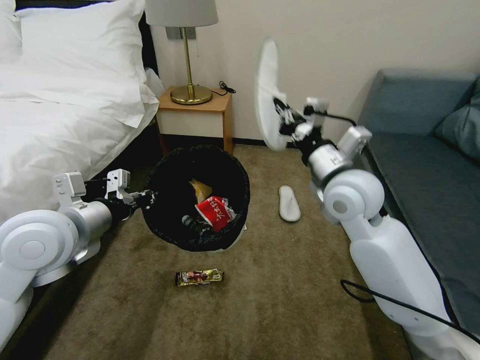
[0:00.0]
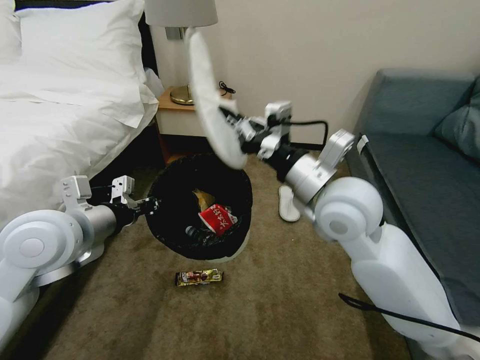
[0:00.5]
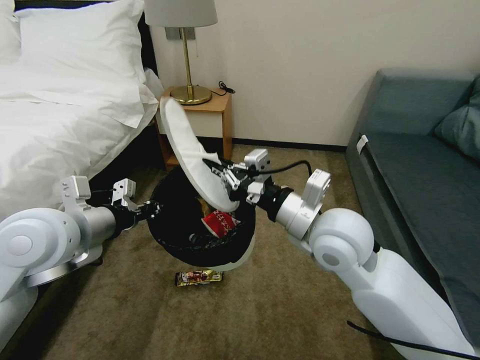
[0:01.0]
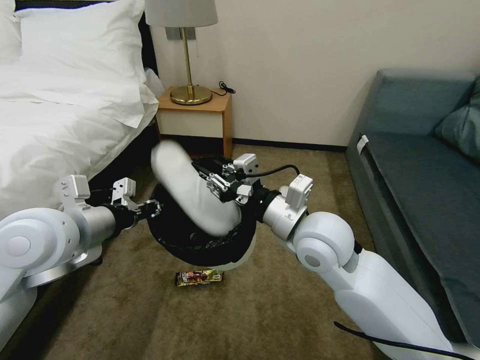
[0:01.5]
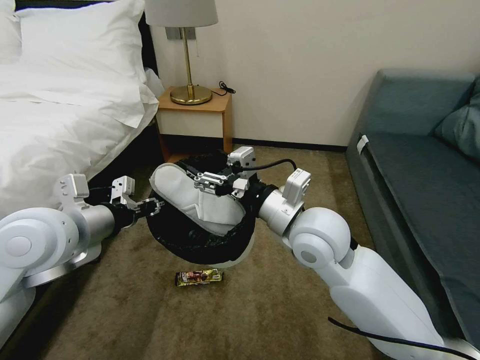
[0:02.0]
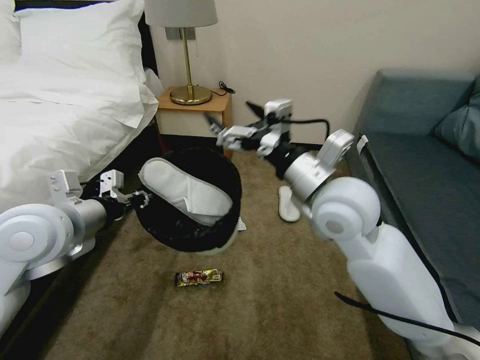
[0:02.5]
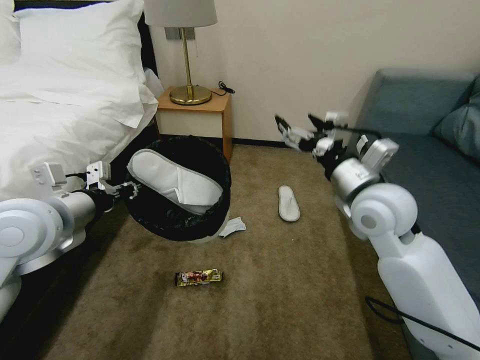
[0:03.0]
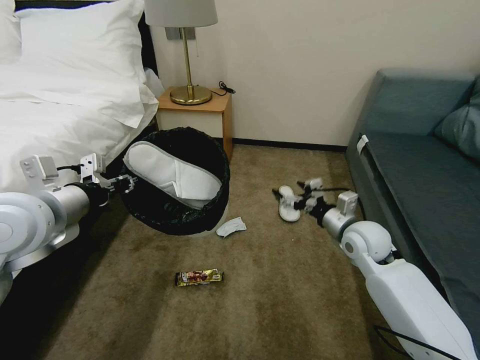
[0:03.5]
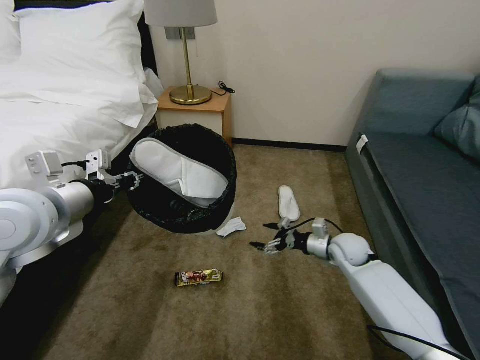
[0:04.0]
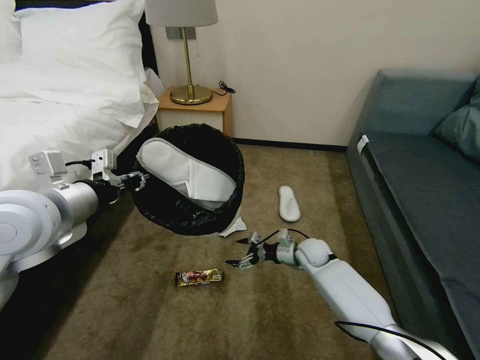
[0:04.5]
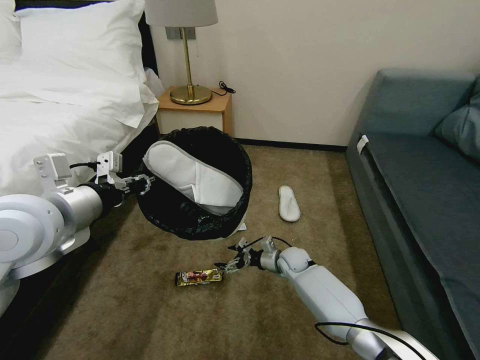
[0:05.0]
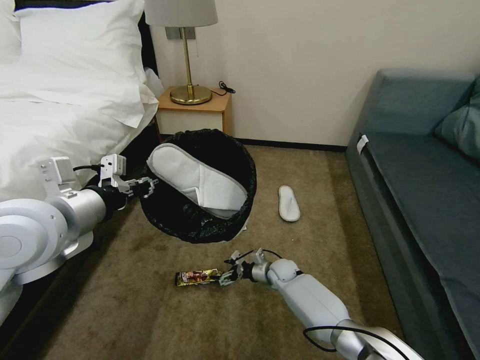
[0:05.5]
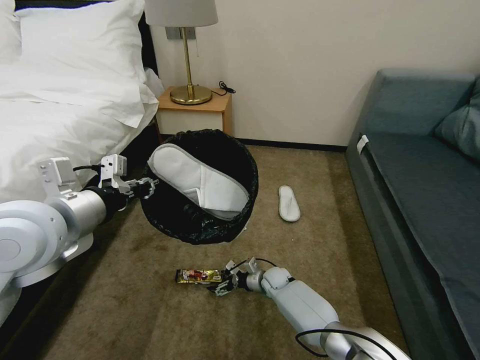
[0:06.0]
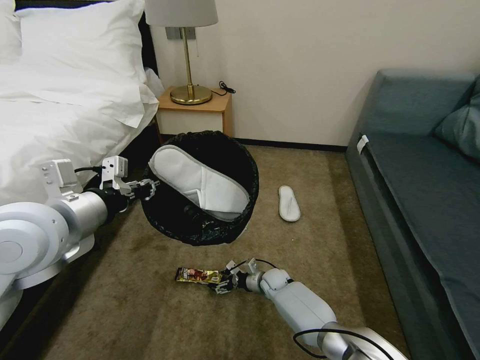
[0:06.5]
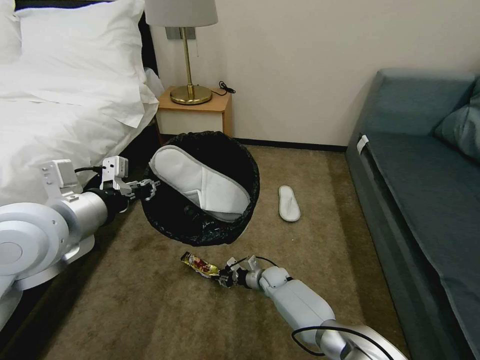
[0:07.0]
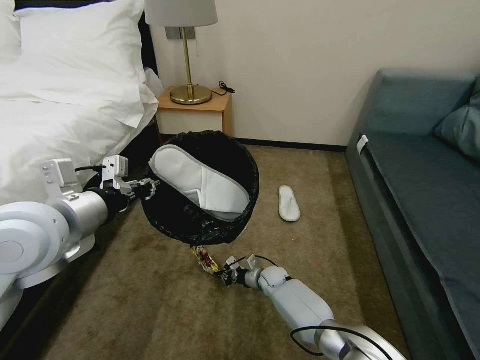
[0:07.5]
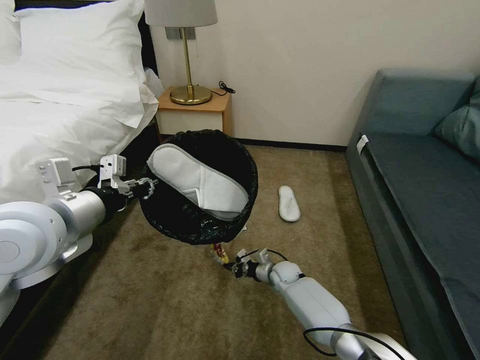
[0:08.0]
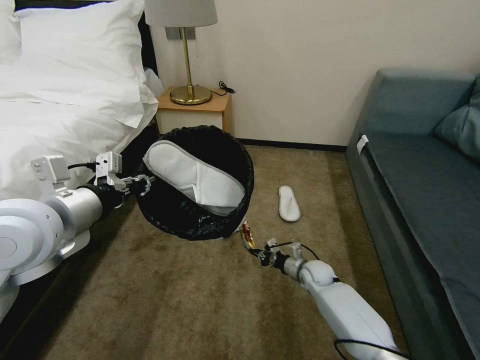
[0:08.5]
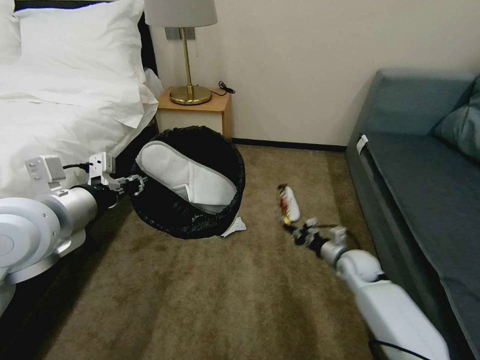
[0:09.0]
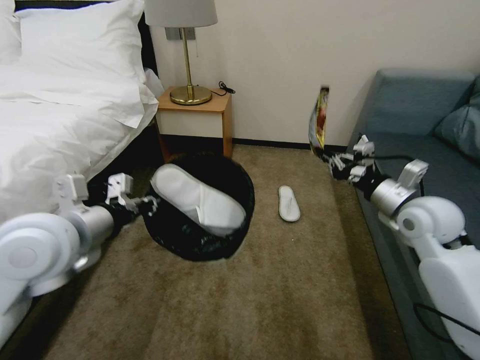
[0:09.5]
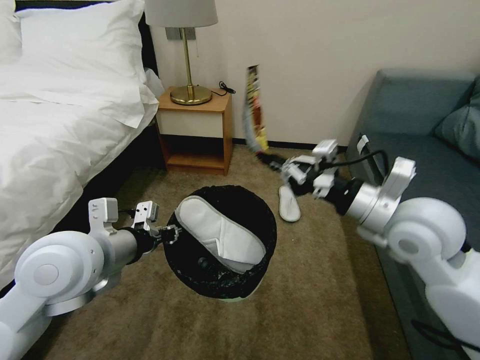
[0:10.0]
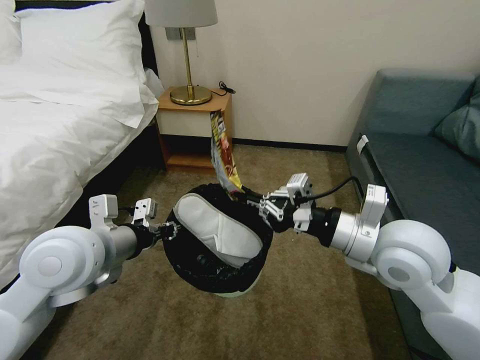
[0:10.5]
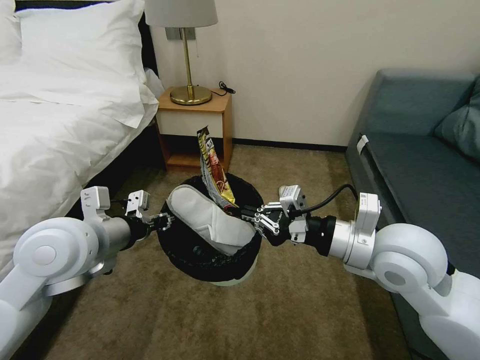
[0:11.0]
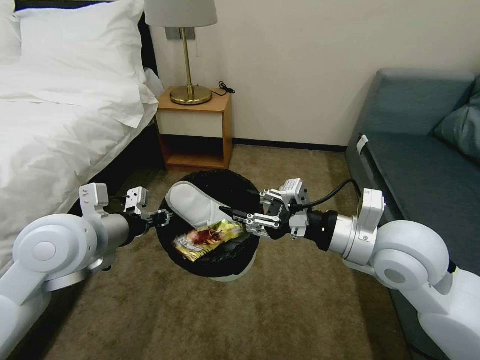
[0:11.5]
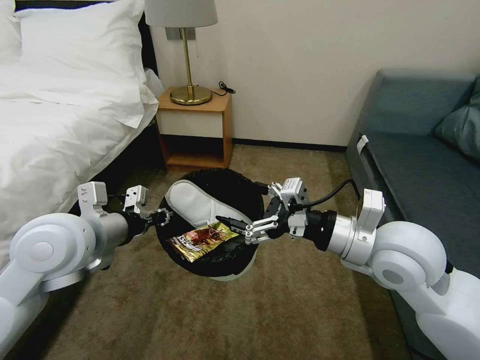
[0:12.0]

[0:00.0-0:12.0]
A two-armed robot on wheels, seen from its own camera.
Task of the whole recording: Pick up the trash bin, then pick up the garbage on the floor and place it into the trash bin.
0:00.0 to 0:02.0: The right gripper goes some 10 cm to the left and backward, and opens its fingers.
0:02.0 to 0:04.0: The right gripper goes about 30 cm downward, to the right and forward.
0:04.0 to 0:06.0: The right gripper heads downward and to the left, covering roughly 25 cm.
0:06.0 to 0:08.0: The right gripper closes.
0:08.0 to 0:10.0: The left gripper changes place by roughly 5 cm; the right gripper moves upward, about 40 cm.
0:10.0 to 0:12.0: The right gripper shifts by some 5 cm, and opens its fingers.

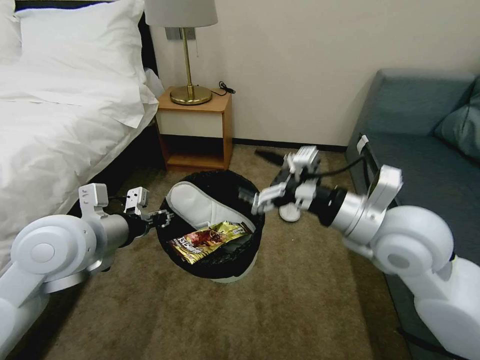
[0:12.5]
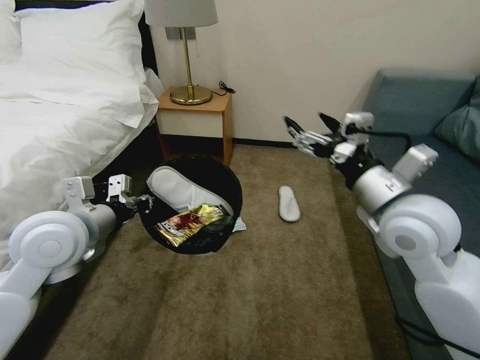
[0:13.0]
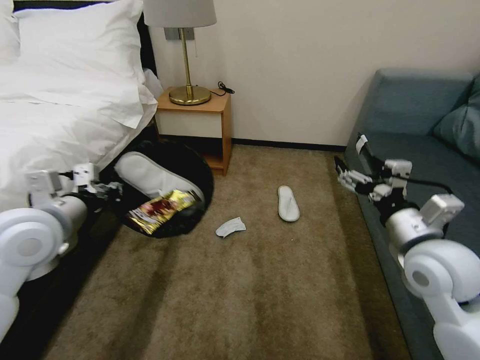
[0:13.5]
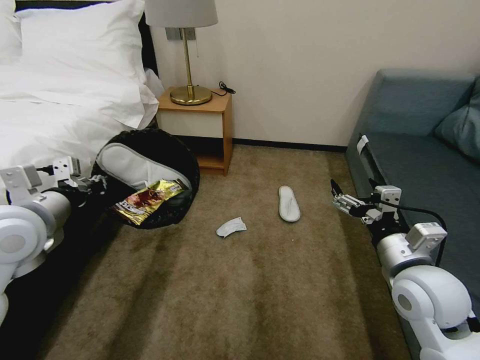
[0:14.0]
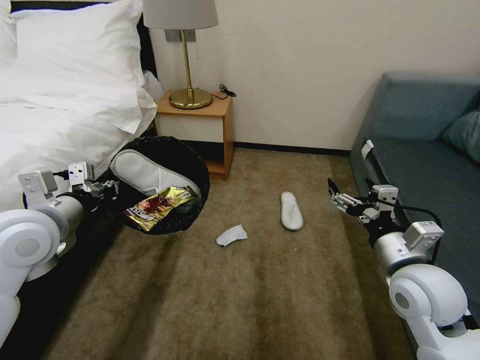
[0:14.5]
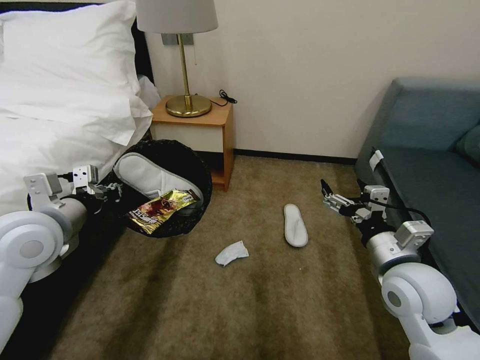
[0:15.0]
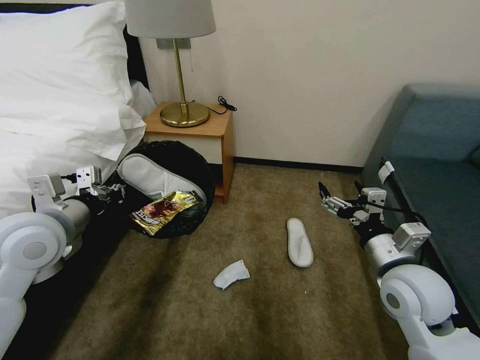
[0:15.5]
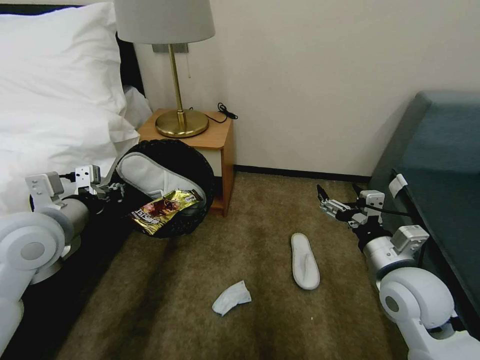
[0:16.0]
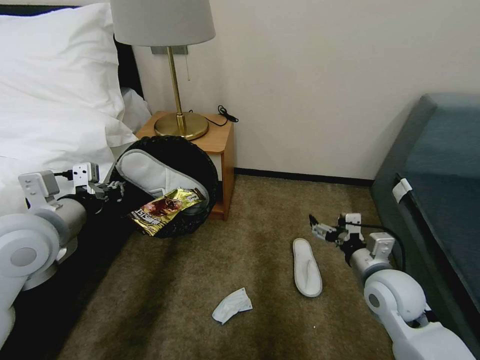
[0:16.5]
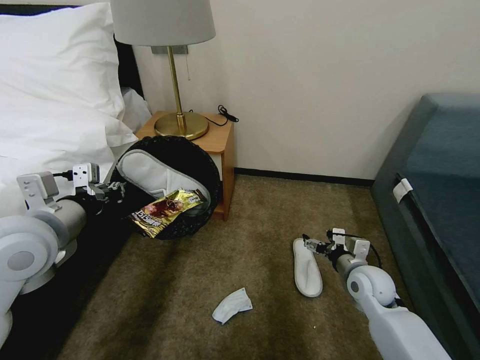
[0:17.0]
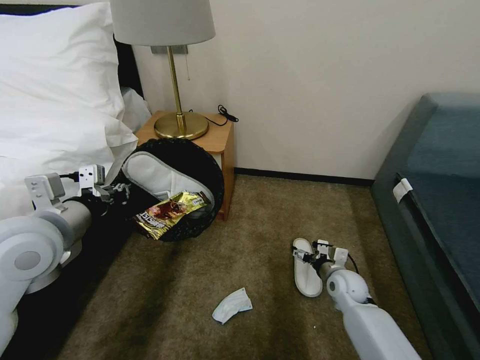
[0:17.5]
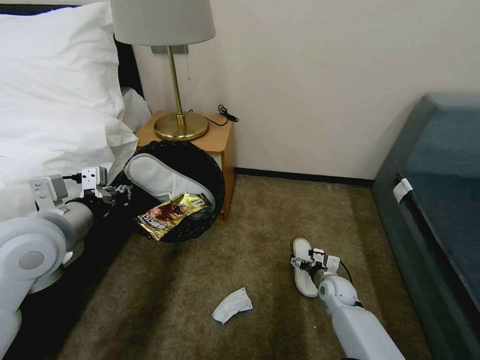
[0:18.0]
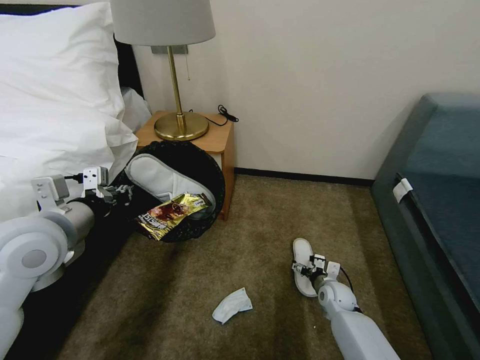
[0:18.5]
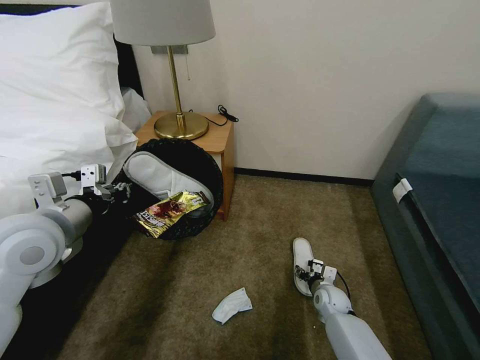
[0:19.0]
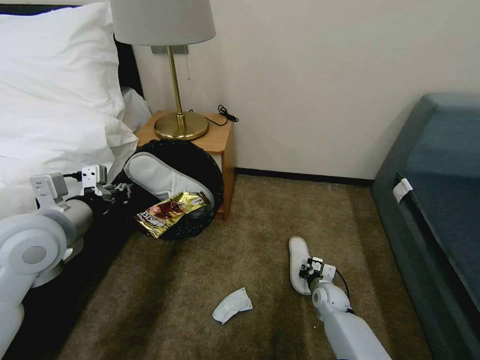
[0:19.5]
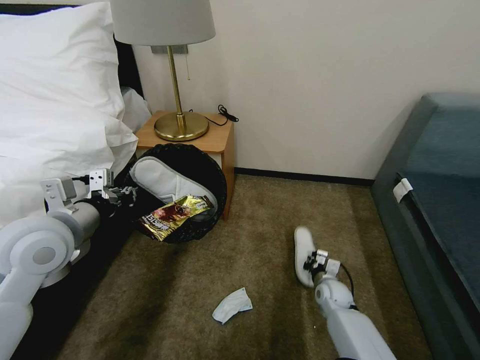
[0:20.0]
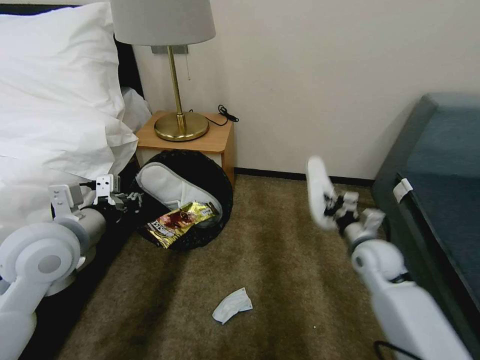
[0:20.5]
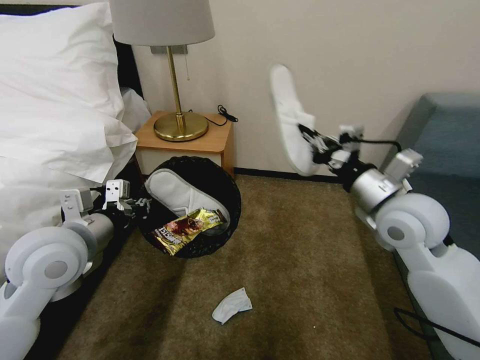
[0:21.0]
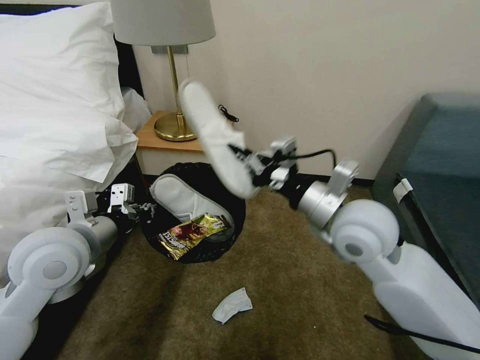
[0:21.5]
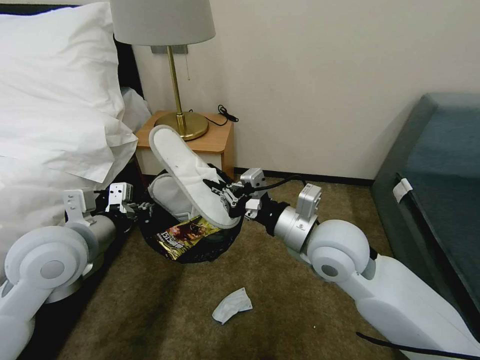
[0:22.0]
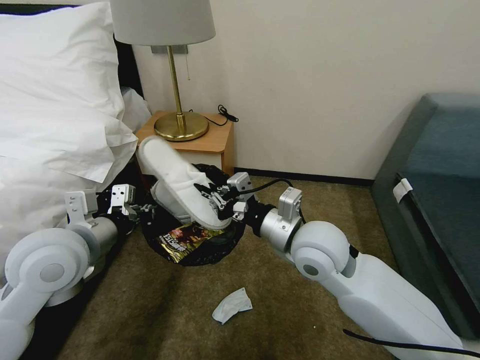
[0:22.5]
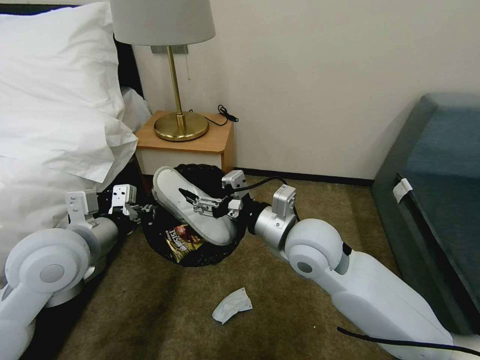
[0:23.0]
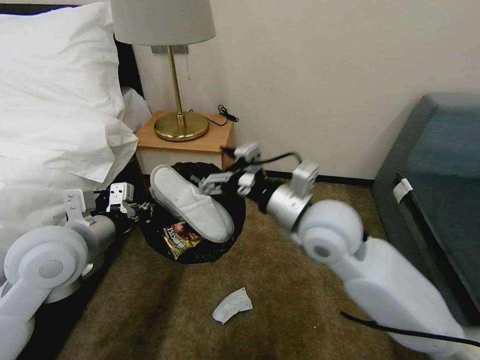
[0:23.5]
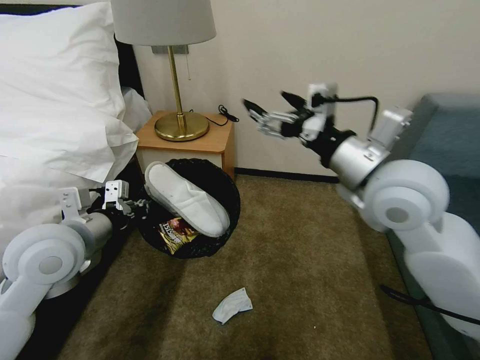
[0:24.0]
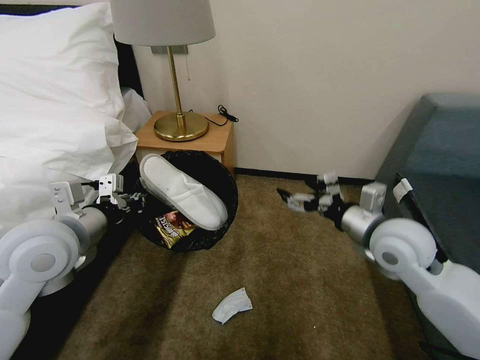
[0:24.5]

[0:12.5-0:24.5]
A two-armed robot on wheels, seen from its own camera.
Task of the whole recording: Pick up the trash bin, then pick up the garbage on the floor and place it into the trash bin.
0:12.5 to 0:14.5: The right gripper heads downward and to the right, covering some 15 cm, while the left gripper moves to the left, some 5 cm.
0:14.5 to 0:16.5: The right gripper goes some 5 cm downward.
0:16.5 to 0:18.5: The right gripper shifts some 25 cm downward.
0:18.5 to 0:20.5: The right gripper is displaced upward by some 25 cm, and closes its fingers.
0:20.5 to 0:22.5: The right gripper shifts approximately 25 cm to the left and upward.
0:22.5 to 0:24.5: The right gripper shifts about 15 cm to the right, and opens.

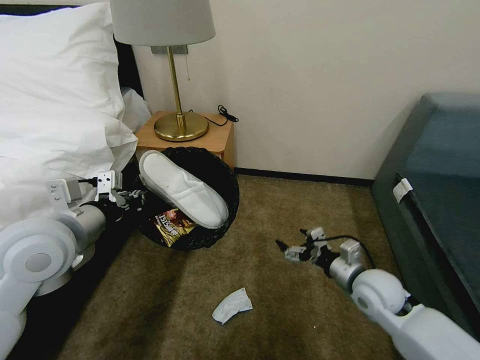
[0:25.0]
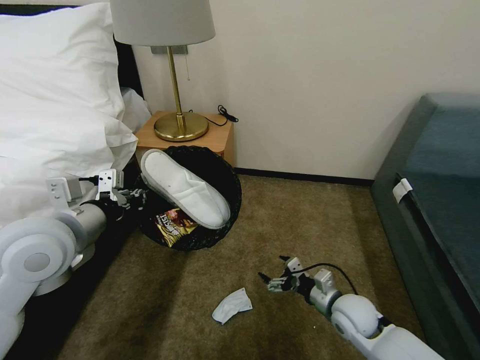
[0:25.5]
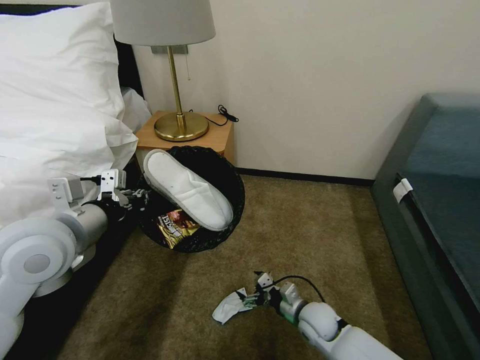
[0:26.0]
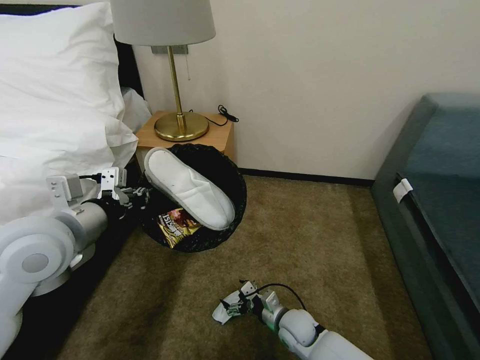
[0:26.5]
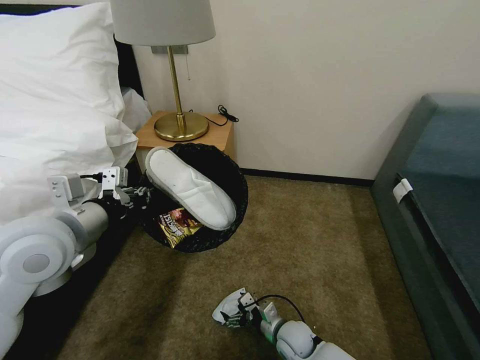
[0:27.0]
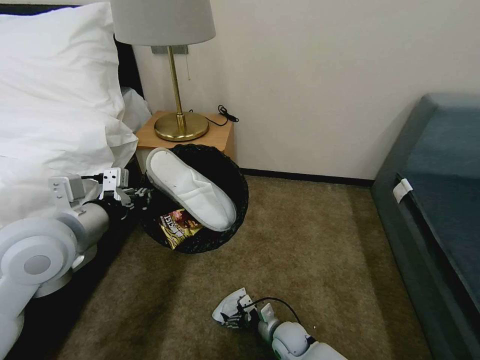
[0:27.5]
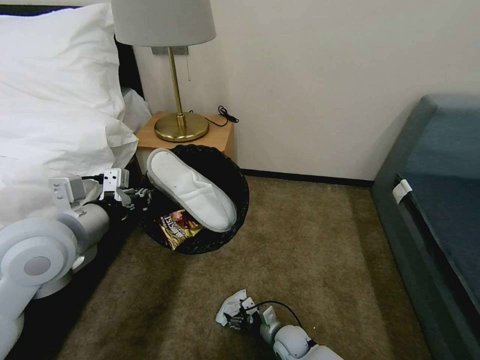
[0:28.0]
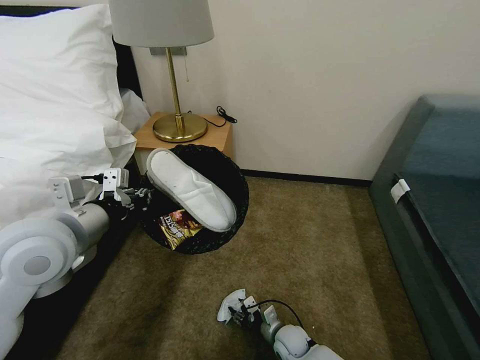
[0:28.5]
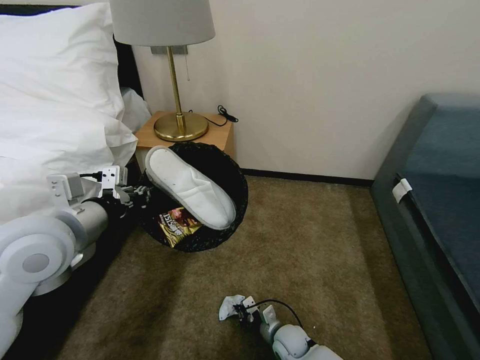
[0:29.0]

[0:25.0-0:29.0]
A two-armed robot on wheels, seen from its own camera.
Task of the whole recording: Pick up the trash bin, then pick up the garbage on the floor and place it into the trash bin.
0:25.0 to 0:27.0: The right gripper moves downward and to the left, about 25 cm.
0:27.0 to 0:29.0: The right gripper closes up.
